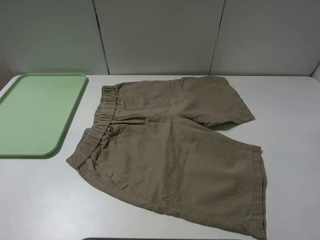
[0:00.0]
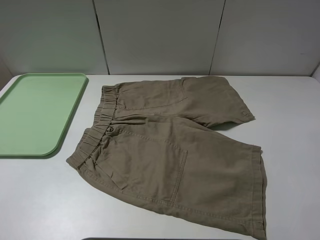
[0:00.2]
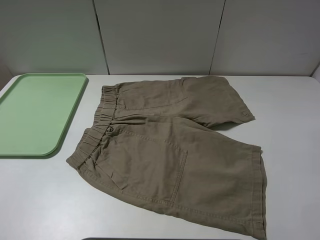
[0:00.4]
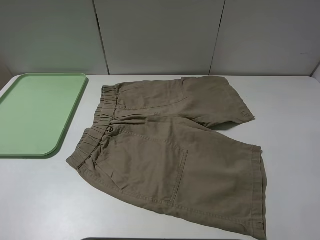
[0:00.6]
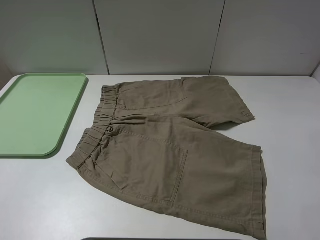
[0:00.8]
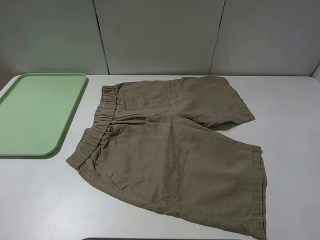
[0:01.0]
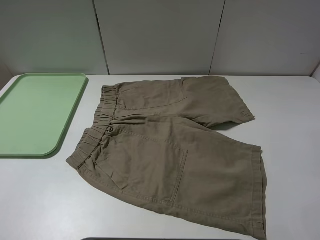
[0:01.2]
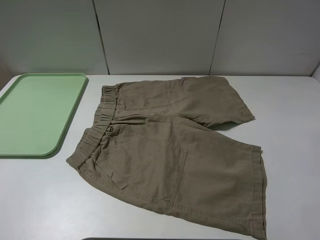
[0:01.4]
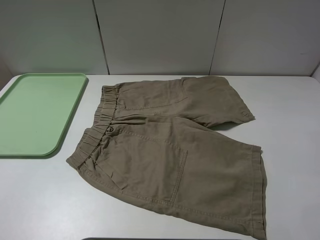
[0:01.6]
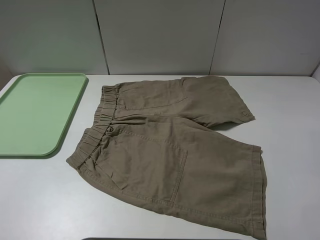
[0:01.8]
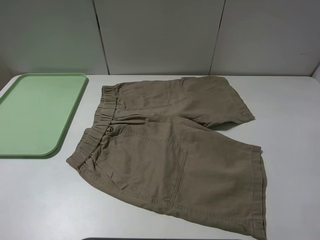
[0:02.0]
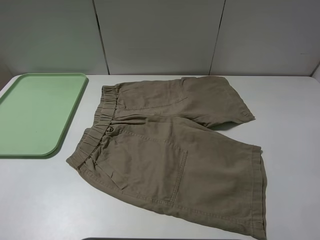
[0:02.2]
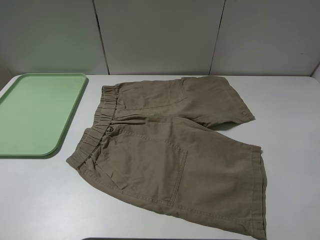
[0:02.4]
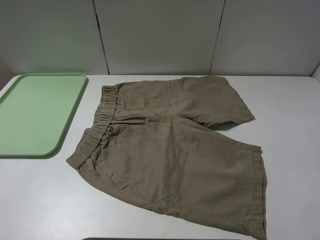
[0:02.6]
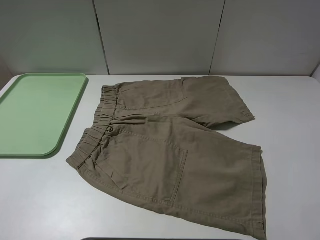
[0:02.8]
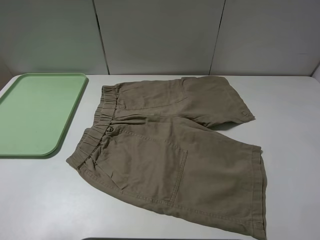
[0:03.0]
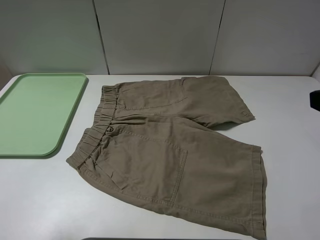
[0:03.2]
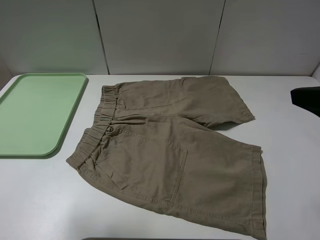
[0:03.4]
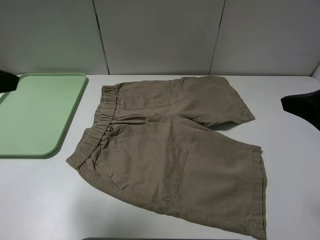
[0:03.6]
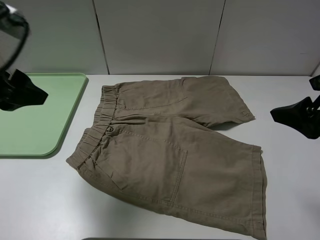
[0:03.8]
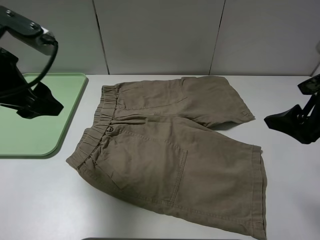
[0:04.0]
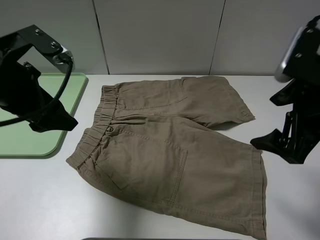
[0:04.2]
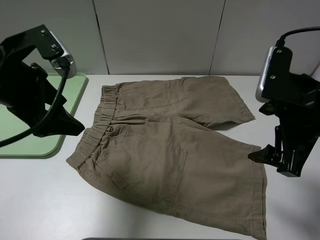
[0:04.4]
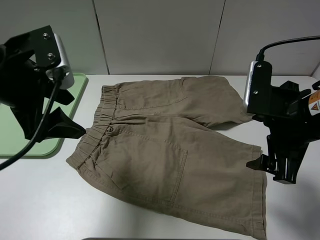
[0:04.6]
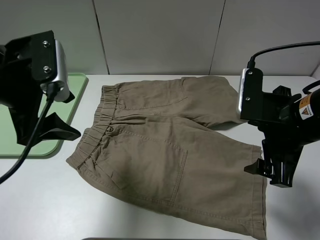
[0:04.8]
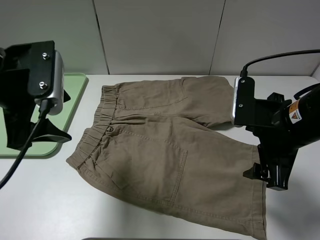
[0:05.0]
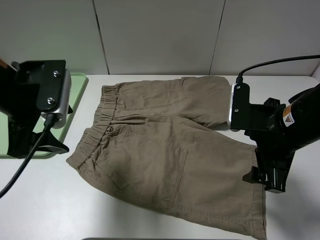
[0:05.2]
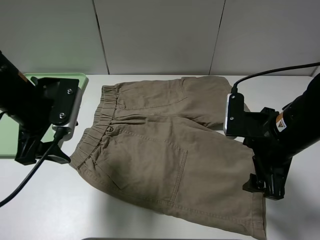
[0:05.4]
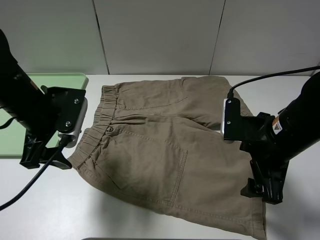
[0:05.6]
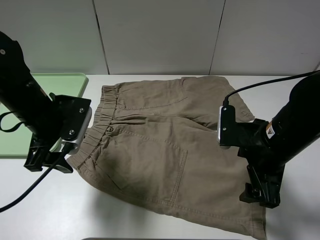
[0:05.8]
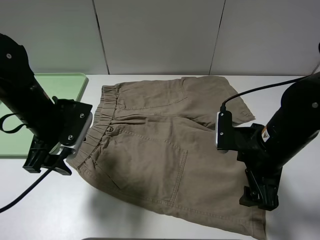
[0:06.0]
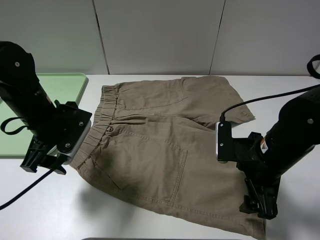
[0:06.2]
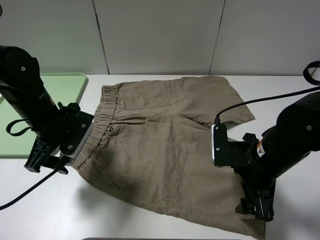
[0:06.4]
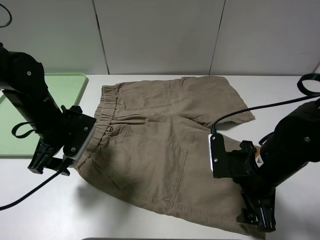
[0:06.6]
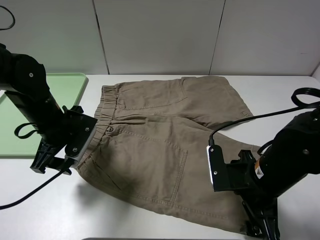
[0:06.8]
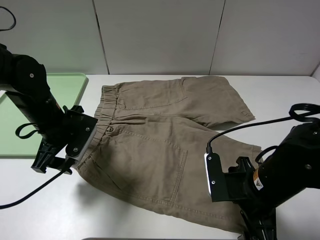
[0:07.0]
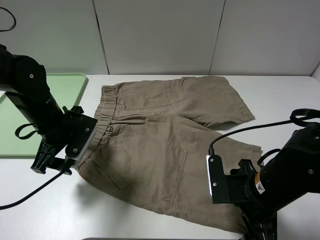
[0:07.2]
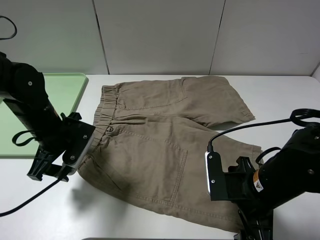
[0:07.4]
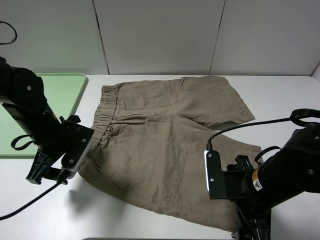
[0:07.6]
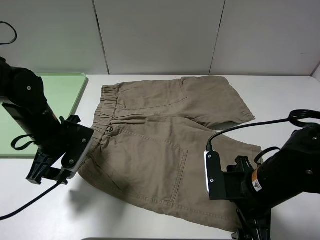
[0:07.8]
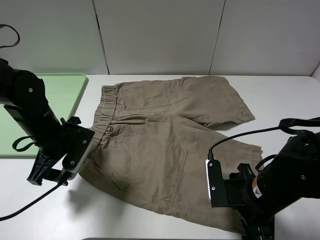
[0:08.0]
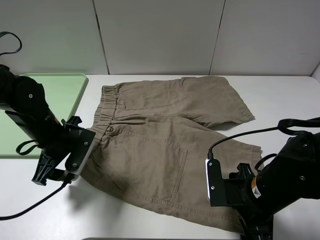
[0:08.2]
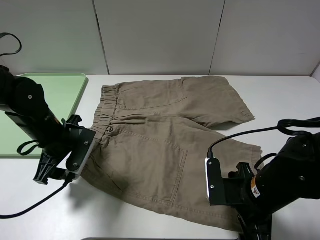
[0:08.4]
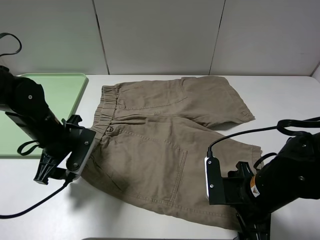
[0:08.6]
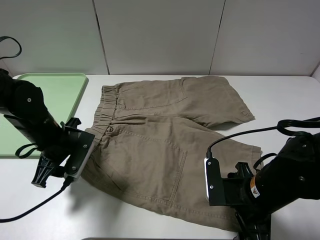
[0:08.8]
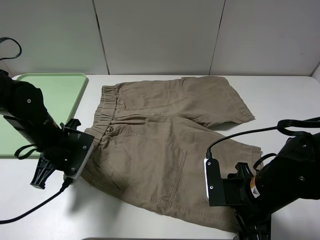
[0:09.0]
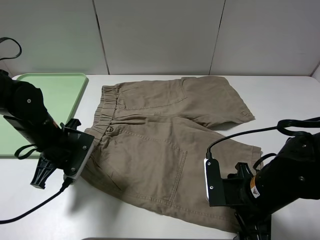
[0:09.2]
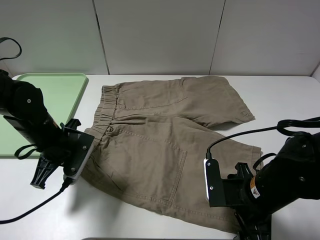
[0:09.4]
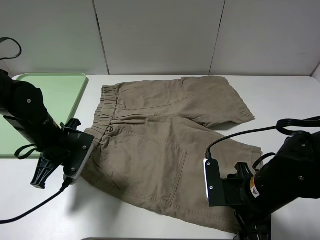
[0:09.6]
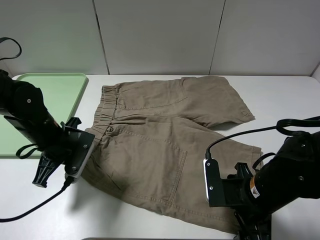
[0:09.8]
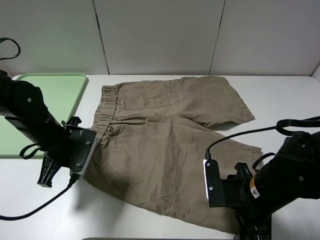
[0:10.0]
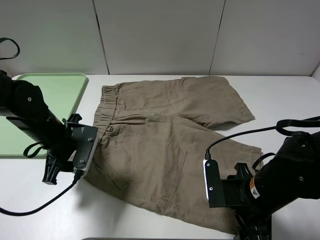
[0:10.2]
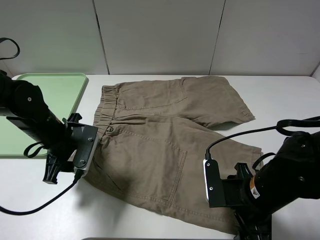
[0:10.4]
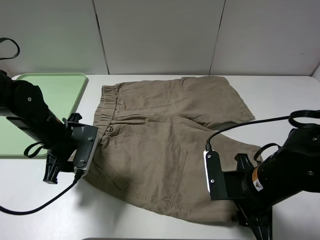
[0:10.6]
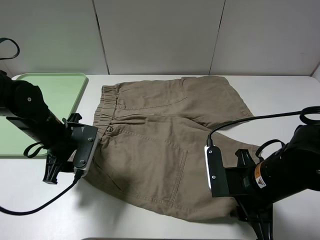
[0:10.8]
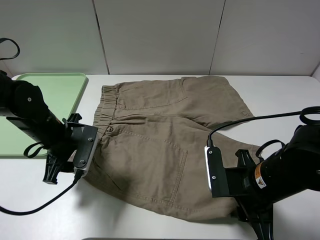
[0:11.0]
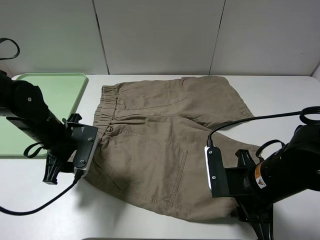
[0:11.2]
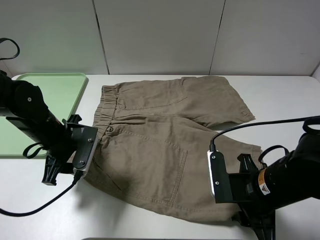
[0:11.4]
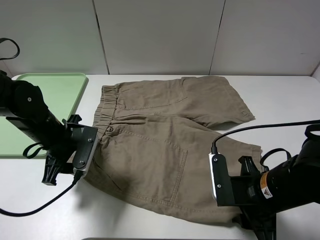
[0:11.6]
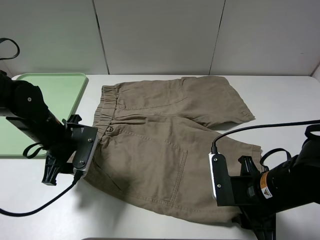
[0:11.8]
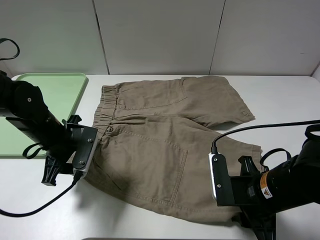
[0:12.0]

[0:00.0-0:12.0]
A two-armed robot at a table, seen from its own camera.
Task of the whole recording: fold the khaki jeans in half with two grippers, then fold them in half again, and use the left claw to place the folded fold khaki jeans on the tray.
0:00.0 to 0:01.6: Both grippers stay about where they are.
0:03.0 to 0:04.4: The right gripper goes approximately 15 cm forward, downward and to the left, while the left gripper travels forward and to the right by about 20 cm.
0:04.4 to 0:06.0: Both grippers travel together downward, roughly 10 cm.
0:06.0 to 0:07.6: The right gripper changes place by about 5 cm.
0:07.6 to 0:09.0: The left gripper closes up.
0:09.0 to 0:10.4: The left gripper opens.
0:10.4 to 0:12.0: The right gripper closes.

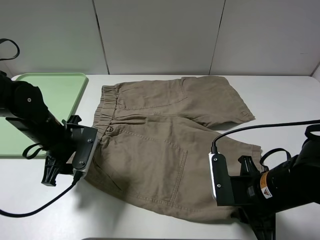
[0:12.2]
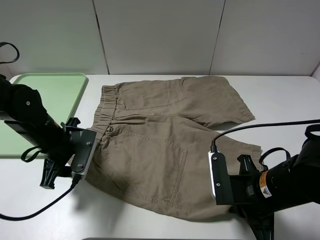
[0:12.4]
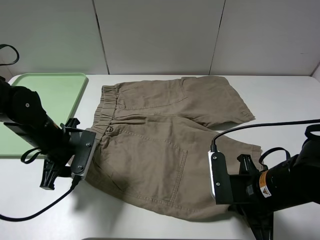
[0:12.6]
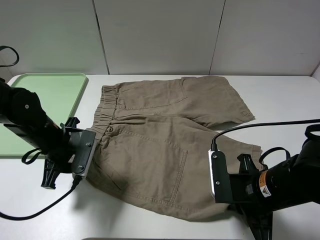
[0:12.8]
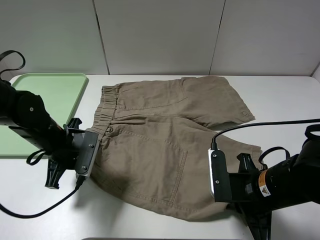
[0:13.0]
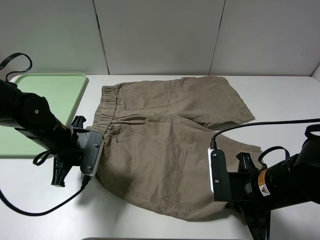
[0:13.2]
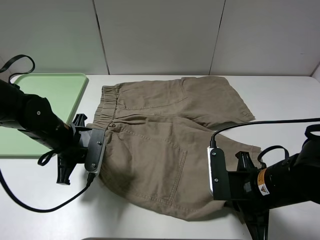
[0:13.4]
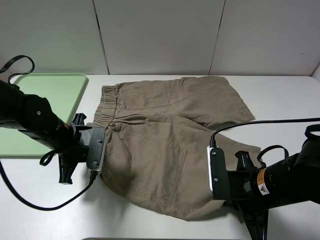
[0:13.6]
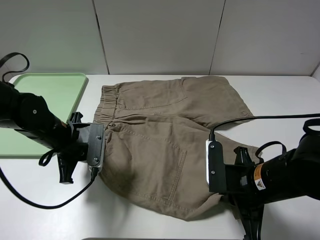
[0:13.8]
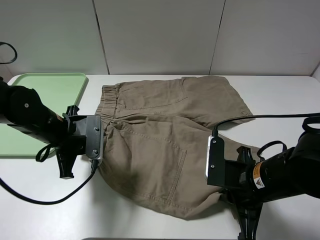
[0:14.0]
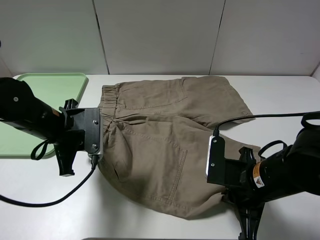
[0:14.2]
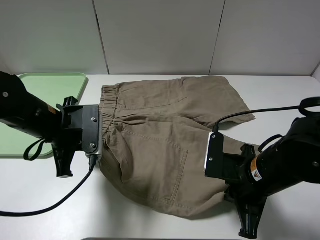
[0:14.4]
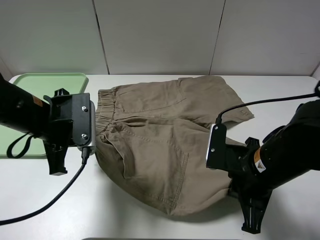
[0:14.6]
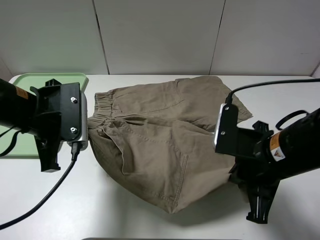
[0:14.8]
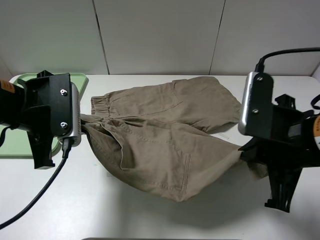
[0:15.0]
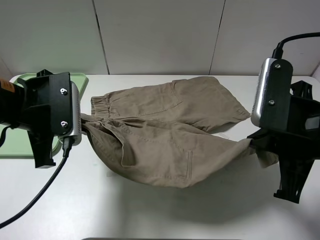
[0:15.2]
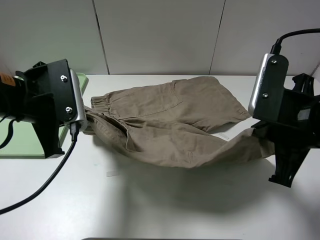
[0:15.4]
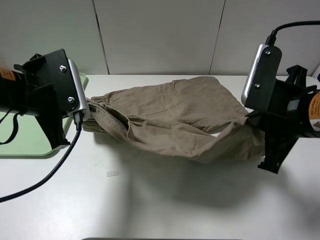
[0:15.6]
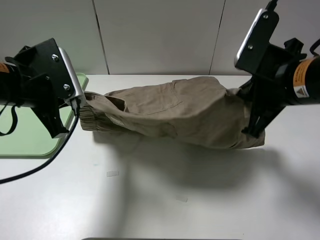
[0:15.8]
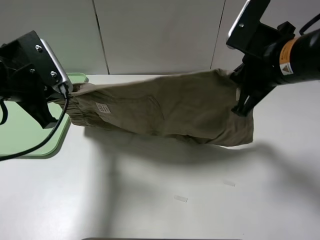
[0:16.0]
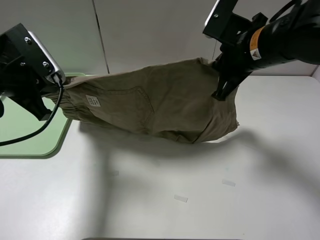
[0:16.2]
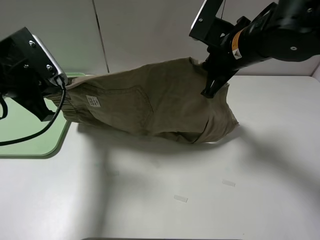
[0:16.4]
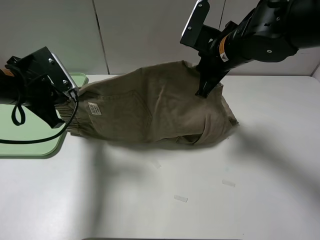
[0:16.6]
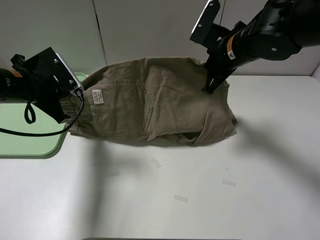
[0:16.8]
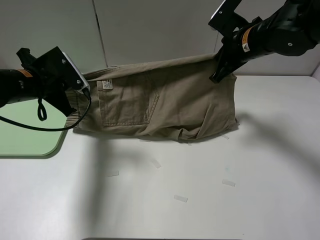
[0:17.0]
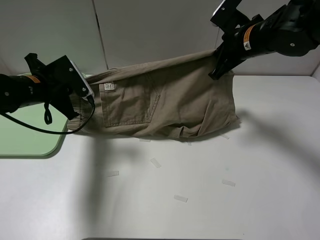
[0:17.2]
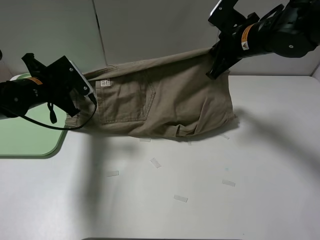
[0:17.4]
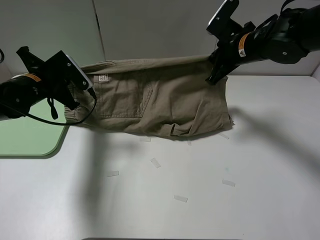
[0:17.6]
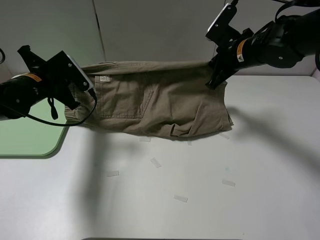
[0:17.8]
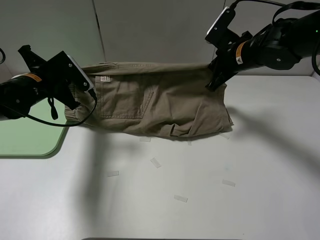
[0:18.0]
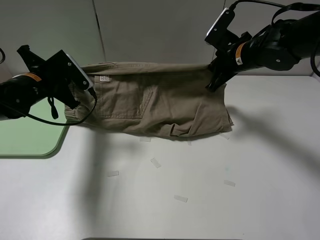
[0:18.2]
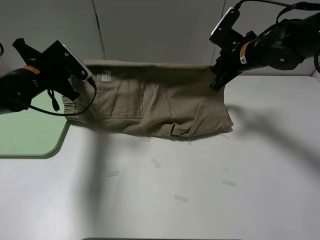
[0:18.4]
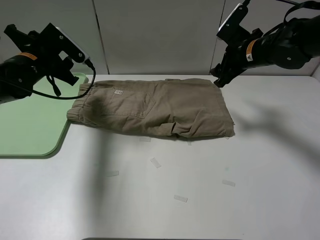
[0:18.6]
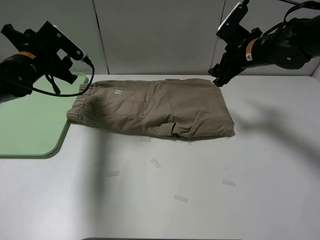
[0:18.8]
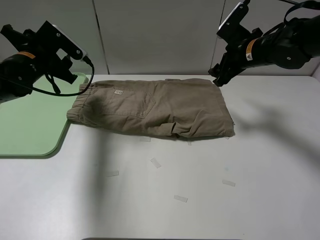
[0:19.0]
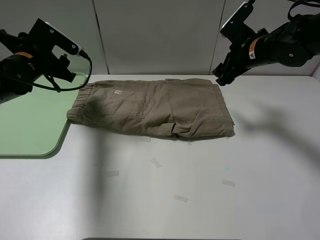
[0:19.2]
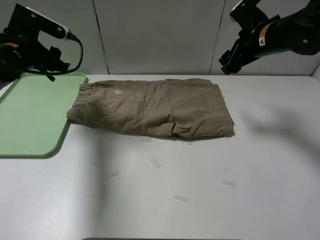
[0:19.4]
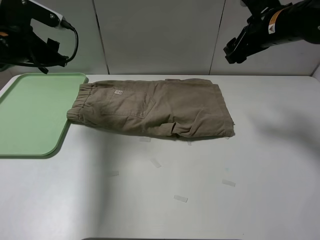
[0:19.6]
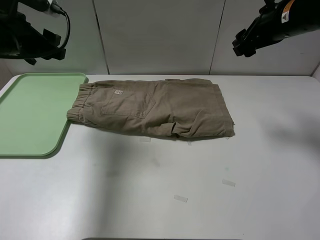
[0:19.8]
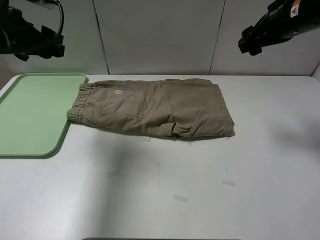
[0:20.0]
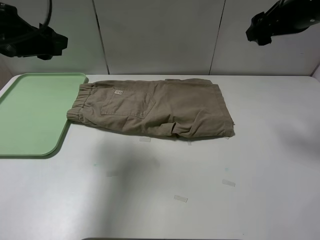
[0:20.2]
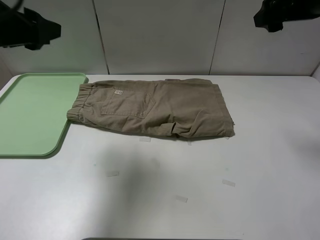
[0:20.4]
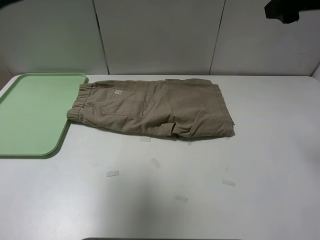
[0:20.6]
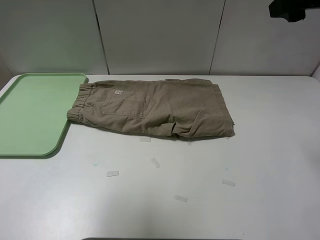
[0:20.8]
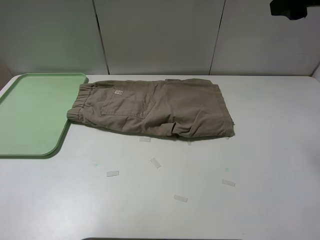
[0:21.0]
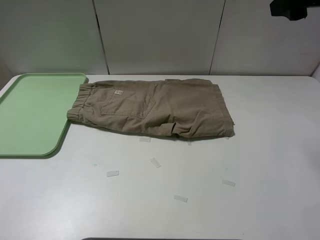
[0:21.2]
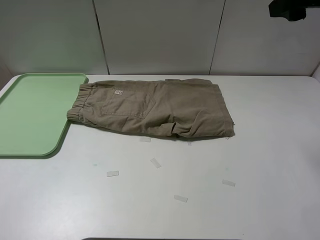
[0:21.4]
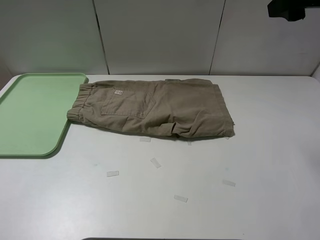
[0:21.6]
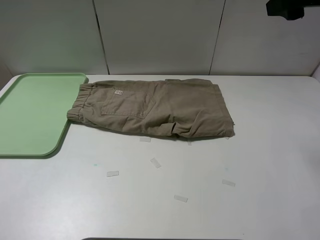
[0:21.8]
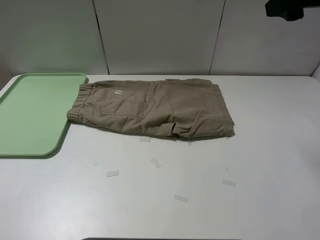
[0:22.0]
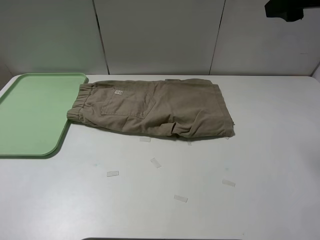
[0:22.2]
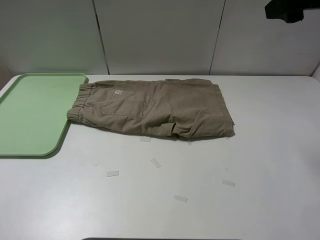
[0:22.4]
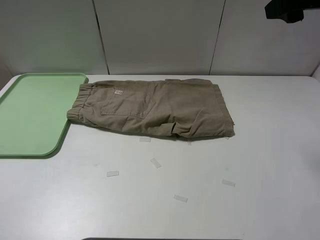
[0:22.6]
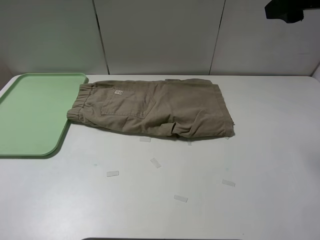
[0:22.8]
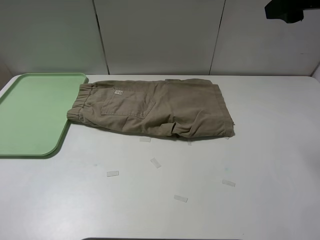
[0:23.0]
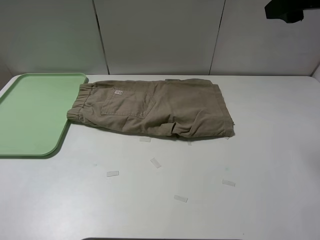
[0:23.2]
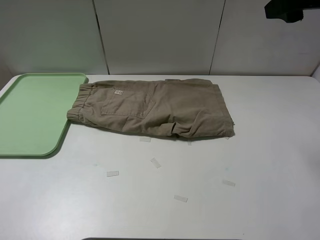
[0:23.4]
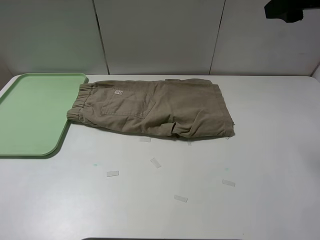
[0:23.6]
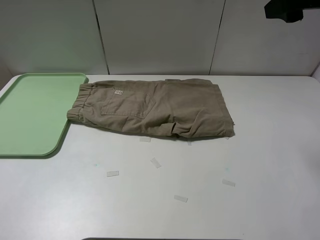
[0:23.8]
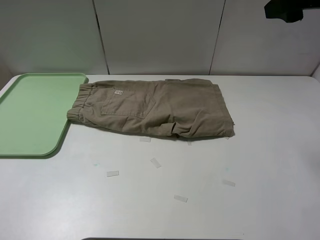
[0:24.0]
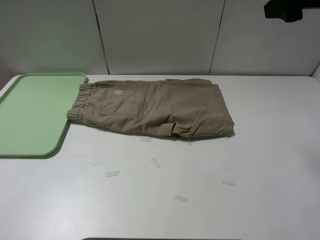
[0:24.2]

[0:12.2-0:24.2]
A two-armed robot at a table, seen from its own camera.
Task of the whole recording: fold the khaki jeans in half with two grippers, then fold them in half again, and use the left claw to place the folded fold khaki jeans on the tray.
Step, 0:12.8 to 0:13.4: Grasp the khaki trousers with the left gripper.
Step, 0:13.6 to 0:18.4: Fold the khaki trousers upwards with the left gripper.
0:12.2 to 0:13.8: The left gripper closes up.
0:13.8 to 0:15.2: Both grippers move upward, some 10 cm.
0:15.2 to 0:16.6: The left gripper heads forward and to the left, covering approximately 10 cm; the right gripper shifts approximately 20 cm forward.
0:16.6 to 0:18.2: The right gripper travels to the right and forward by about 10 cm, while the left gripper moves forward, approximately 5 cm.
0:18.2 to 0:19.8: The two grippers go about 10 cm upward. The left gripper opens up. Meanwhile the right gripper opens its fingers.
0:19.8 to 0:21.2: The right gripper heads upward and backward, covering about 10 cm. The left gripper shifts about 25 cm backward and upward.
